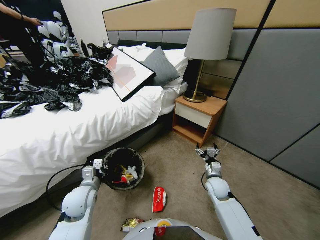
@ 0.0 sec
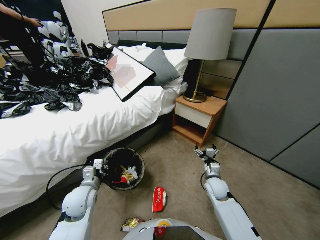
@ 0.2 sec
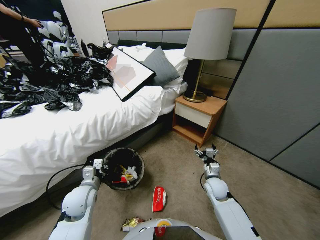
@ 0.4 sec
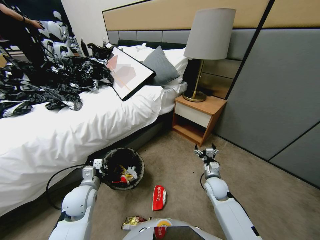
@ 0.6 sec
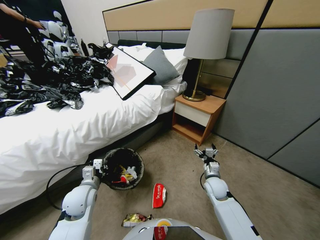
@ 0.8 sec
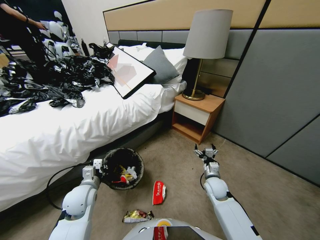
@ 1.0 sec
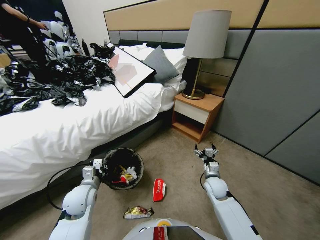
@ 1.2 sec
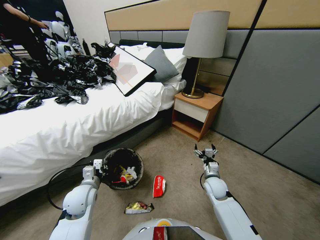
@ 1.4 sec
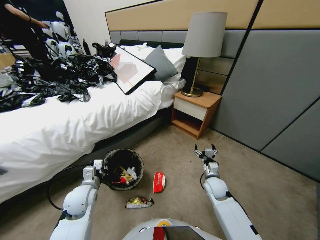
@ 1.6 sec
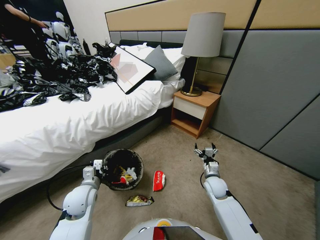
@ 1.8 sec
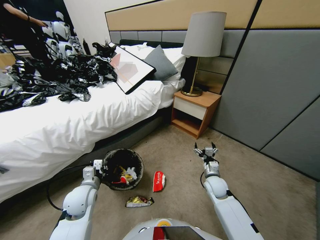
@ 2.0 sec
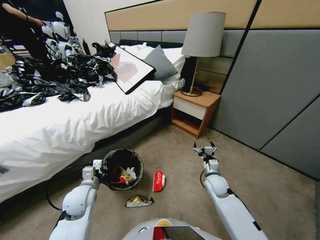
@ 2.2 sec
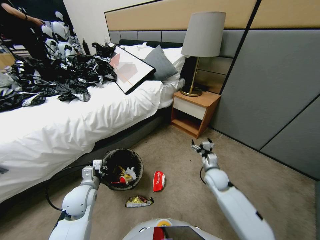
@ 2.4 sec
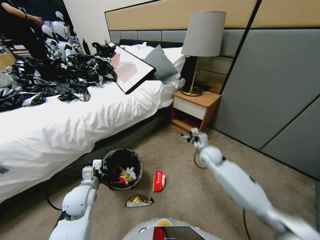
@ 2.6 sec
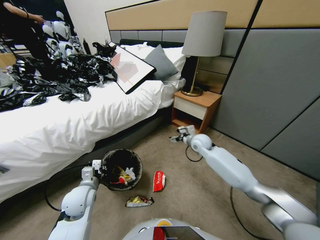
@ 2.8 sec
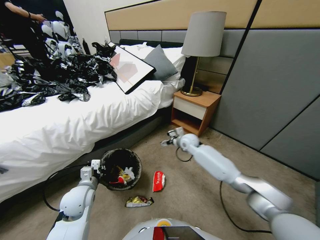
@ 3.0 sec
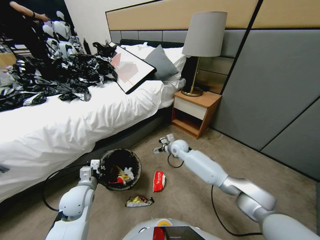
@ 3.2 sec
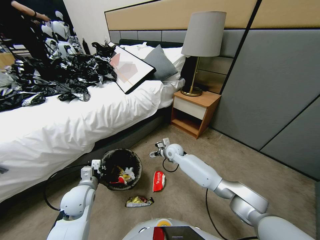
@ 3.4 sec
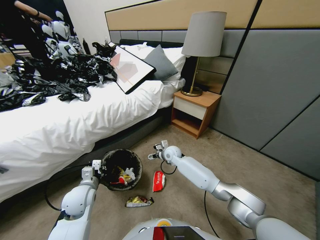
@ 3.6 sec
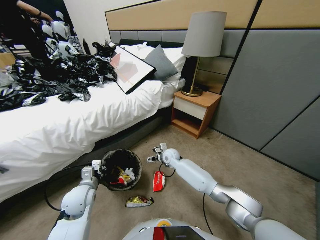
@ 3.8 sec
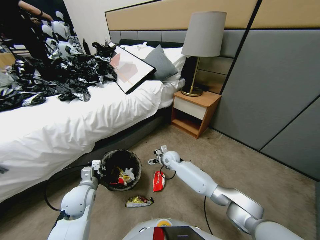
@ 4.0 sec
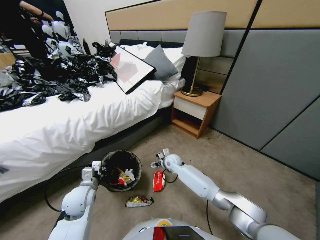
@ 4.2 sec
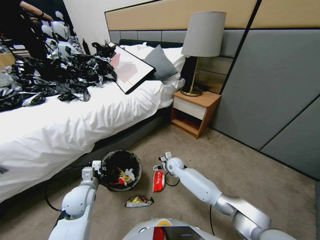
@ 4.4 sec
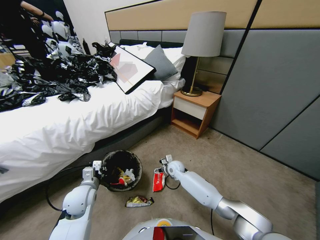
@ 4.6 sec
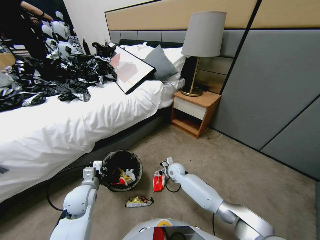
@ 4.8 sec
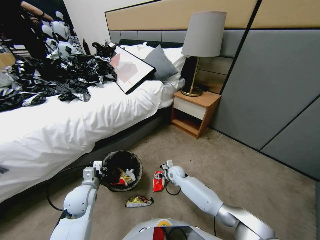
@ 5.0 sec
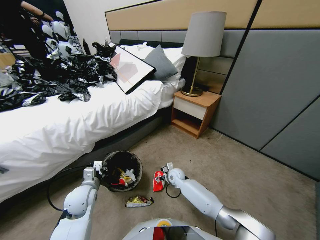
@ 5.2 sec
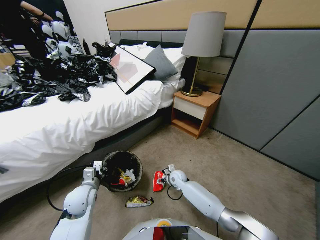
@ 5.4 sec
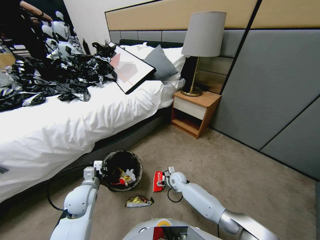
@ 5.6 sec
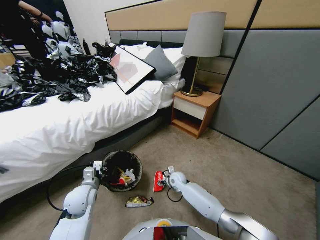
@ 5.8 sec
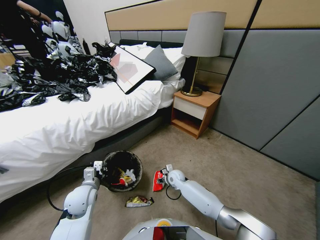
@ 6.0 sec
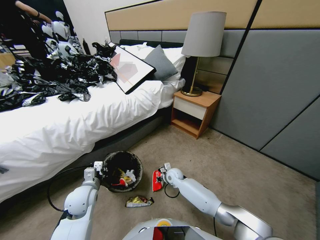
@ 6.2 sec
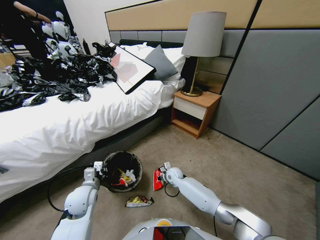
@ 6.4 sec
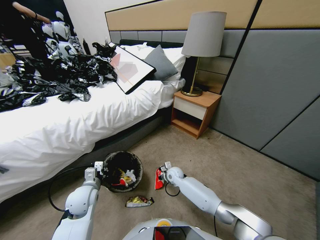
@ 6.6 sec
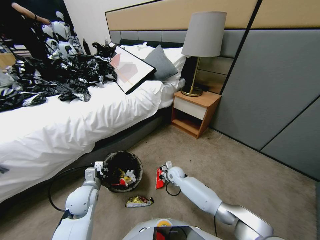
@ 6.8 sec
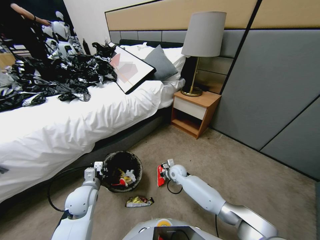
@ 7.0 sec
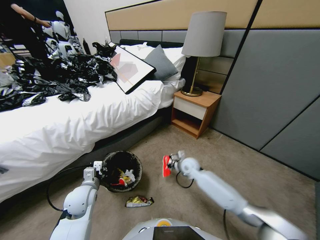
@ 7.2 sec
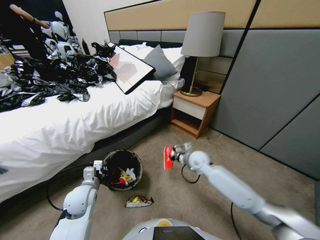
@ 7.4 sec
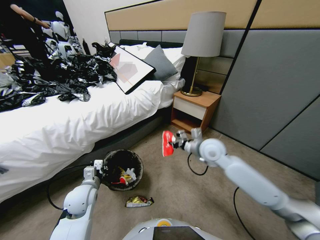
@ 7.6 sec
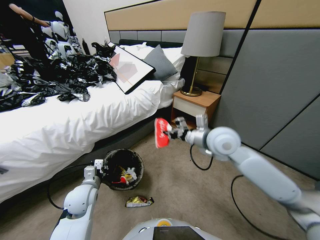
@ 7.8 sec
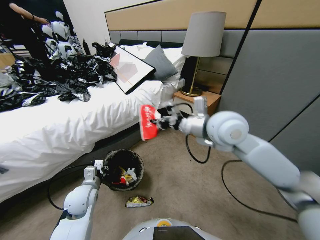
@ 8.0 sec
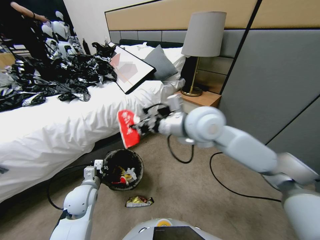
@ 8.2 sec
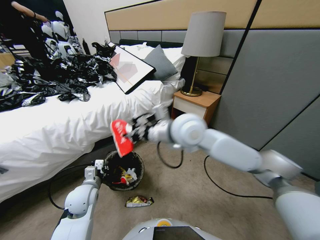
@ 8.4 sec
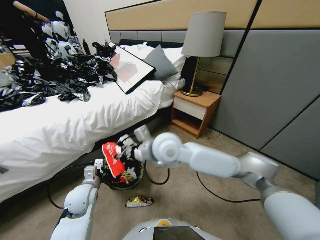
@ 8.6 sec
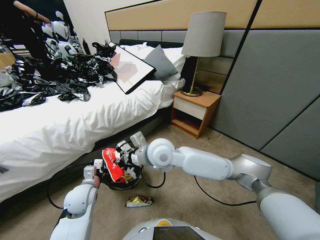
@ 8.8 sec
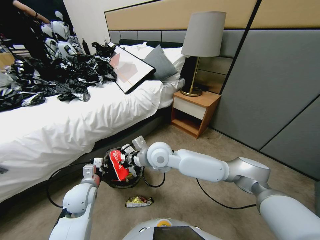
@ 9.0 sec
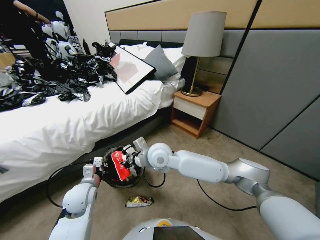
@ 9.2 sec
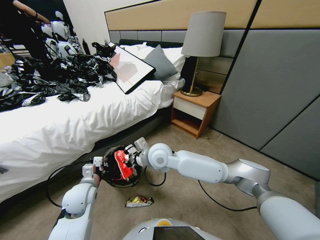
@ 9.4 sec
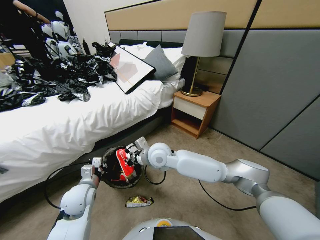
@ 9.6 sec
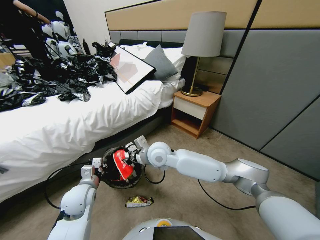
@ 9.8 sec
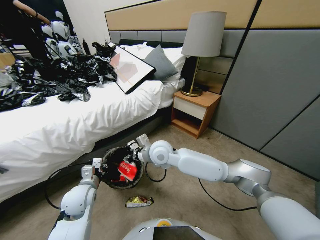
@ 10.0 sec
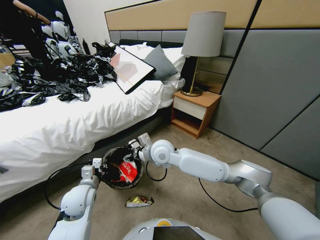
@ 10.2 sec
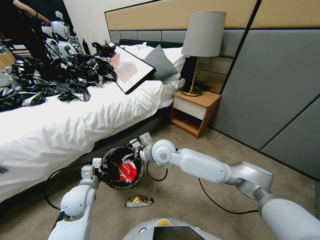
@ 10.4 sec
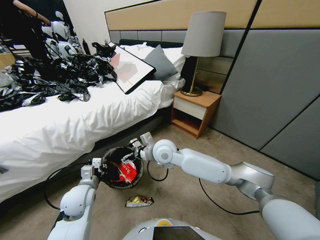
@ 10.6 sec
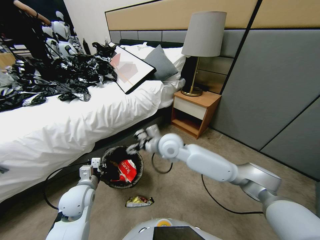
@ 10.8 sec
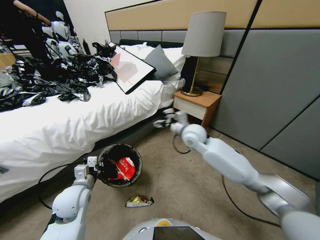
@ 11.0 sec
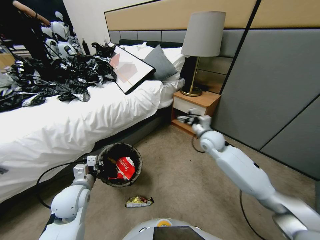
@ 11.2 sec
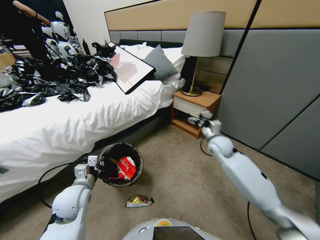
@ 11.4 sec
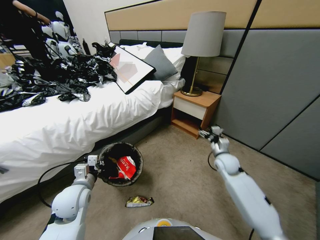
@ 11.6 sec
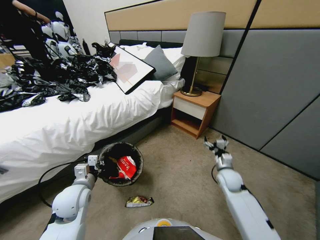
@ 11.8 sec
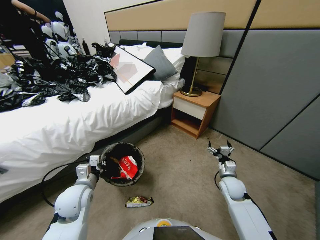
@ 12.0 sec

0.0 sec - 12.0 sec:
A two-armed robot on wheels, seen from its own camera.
Task of the whole recording: Pick up the trash bin, then pick up the garbage from the floor and place it into the trash bin.
1.6 sec - 3.0 sec: The right gripper shifts about 25 cm forward, to the left and upward.
3.0 sec - 4.4 sec: The right gripper heads downward and backward, covering about 15 cm.
4.4 sec - 6.0 sec: The right gripper moves approximately 5 cm, and closes its fingers.
6.0 sec - 7.6 sec: The right gripper moves upward, some 35 cm, and closes.
7.6 sec - 9.0 sec: The right gripper goes some 20 cm to the left.
9.0 sec - 10.4 sec: The right gripper opens.
10.4 sec - 12.0 sec: The right gripper moves to the right and downward, approximately 35 cm.

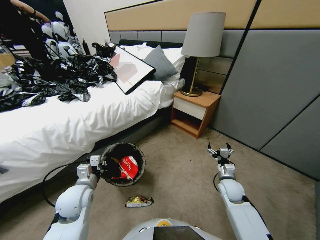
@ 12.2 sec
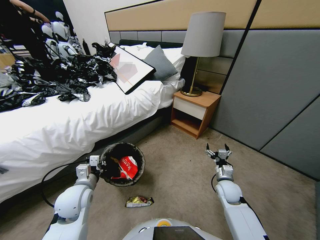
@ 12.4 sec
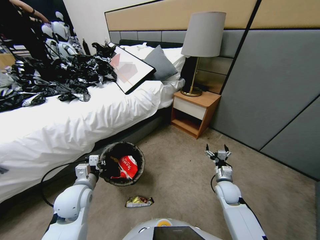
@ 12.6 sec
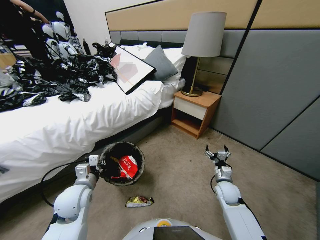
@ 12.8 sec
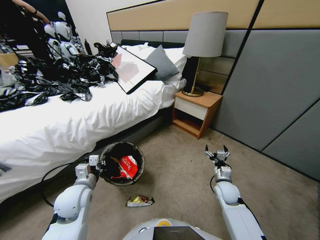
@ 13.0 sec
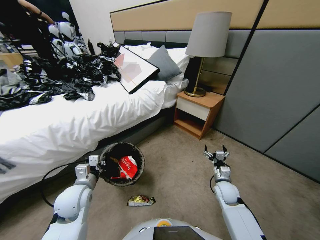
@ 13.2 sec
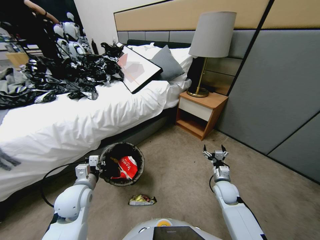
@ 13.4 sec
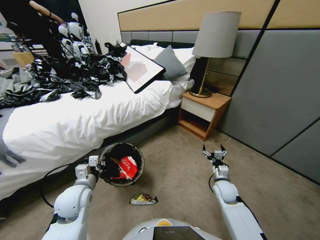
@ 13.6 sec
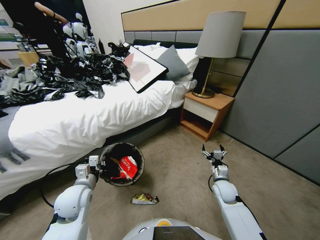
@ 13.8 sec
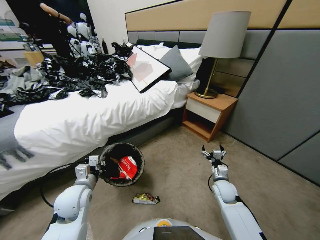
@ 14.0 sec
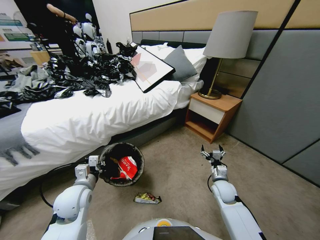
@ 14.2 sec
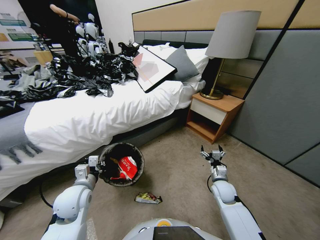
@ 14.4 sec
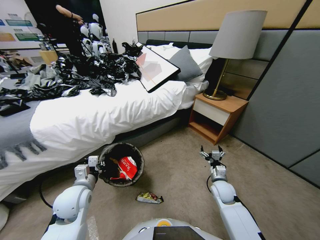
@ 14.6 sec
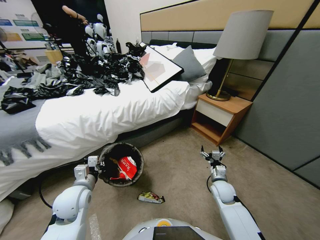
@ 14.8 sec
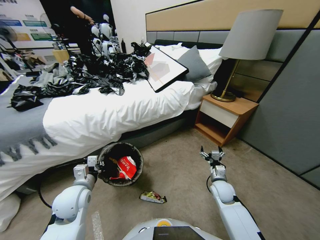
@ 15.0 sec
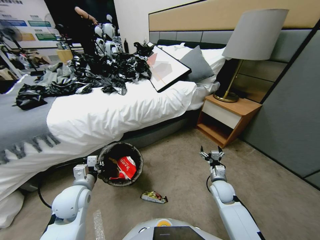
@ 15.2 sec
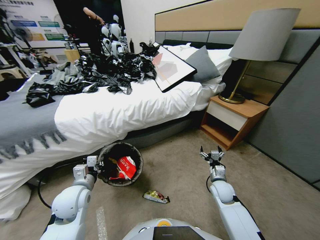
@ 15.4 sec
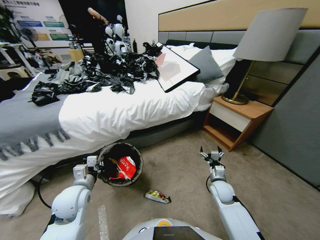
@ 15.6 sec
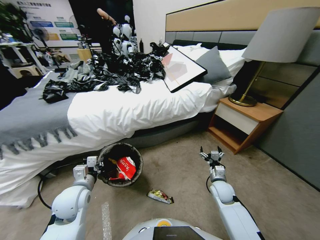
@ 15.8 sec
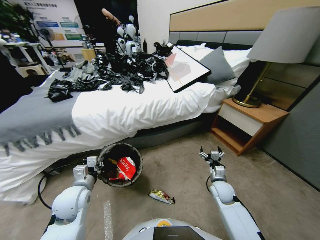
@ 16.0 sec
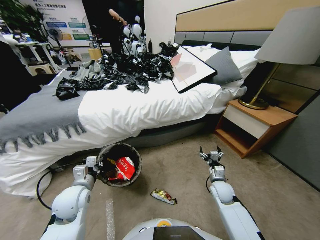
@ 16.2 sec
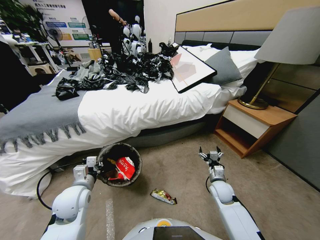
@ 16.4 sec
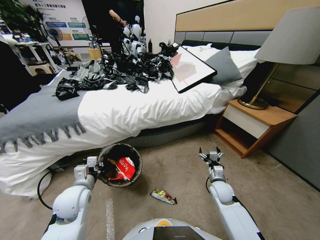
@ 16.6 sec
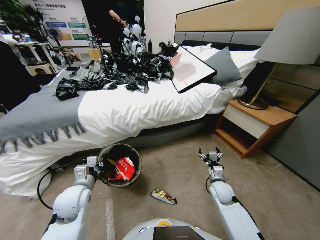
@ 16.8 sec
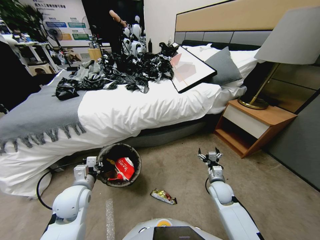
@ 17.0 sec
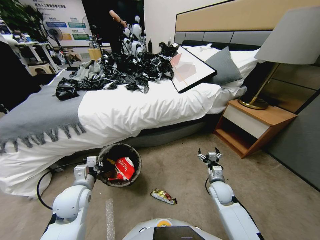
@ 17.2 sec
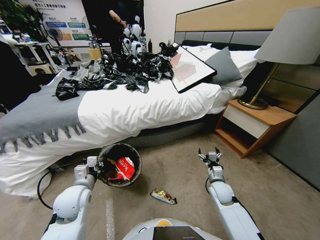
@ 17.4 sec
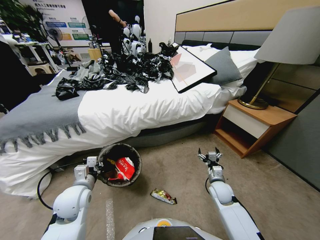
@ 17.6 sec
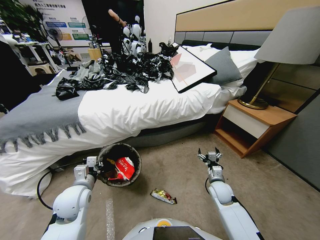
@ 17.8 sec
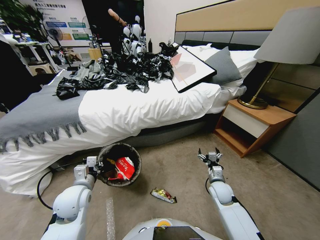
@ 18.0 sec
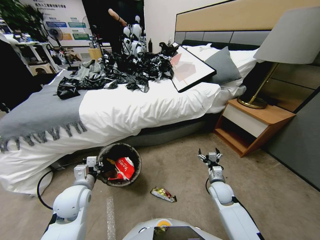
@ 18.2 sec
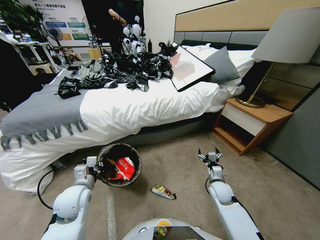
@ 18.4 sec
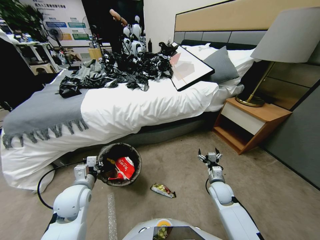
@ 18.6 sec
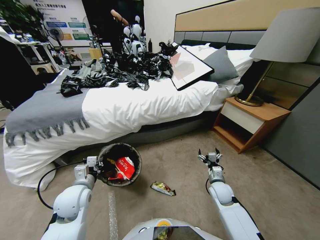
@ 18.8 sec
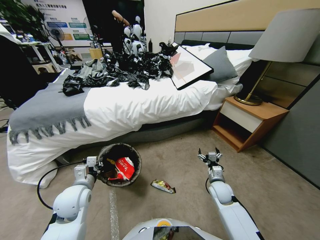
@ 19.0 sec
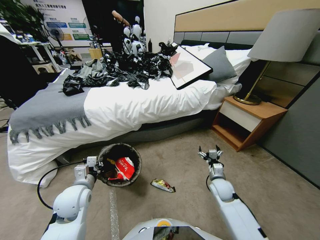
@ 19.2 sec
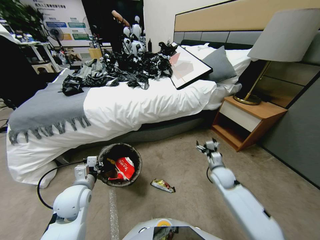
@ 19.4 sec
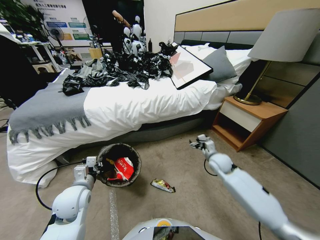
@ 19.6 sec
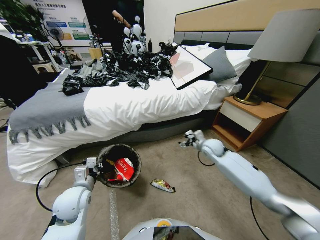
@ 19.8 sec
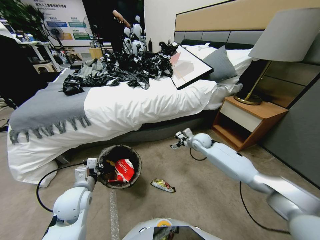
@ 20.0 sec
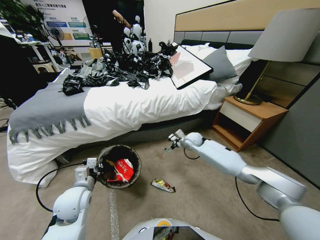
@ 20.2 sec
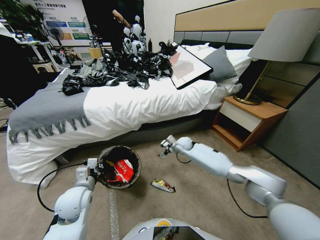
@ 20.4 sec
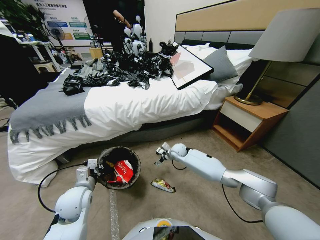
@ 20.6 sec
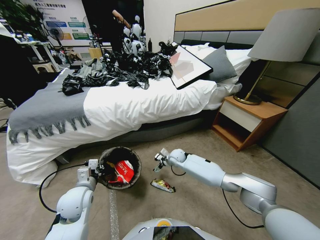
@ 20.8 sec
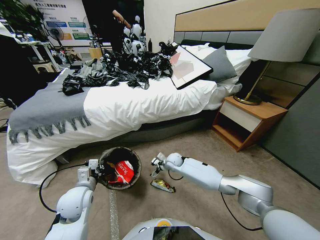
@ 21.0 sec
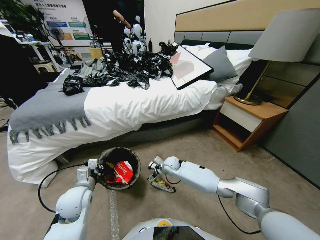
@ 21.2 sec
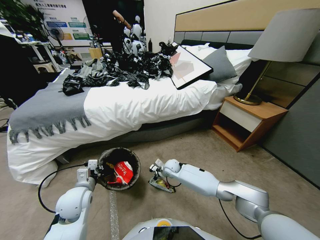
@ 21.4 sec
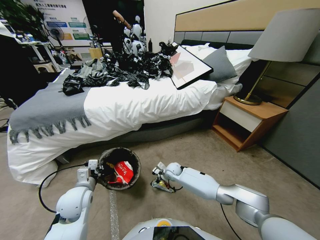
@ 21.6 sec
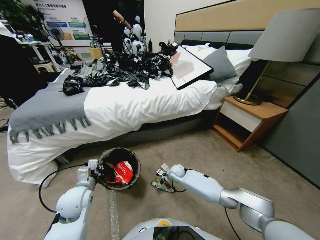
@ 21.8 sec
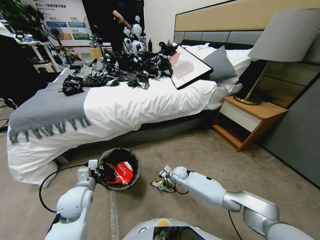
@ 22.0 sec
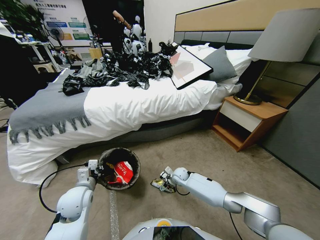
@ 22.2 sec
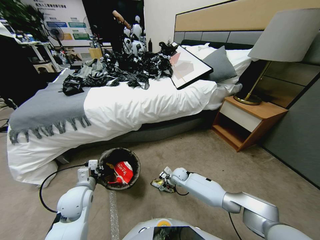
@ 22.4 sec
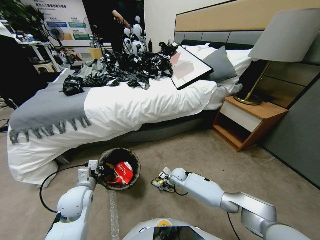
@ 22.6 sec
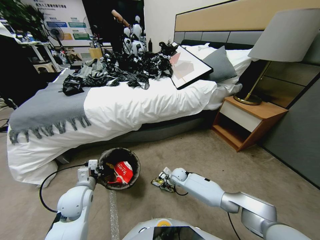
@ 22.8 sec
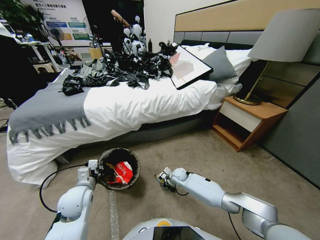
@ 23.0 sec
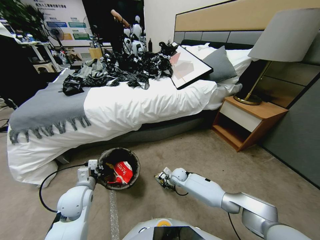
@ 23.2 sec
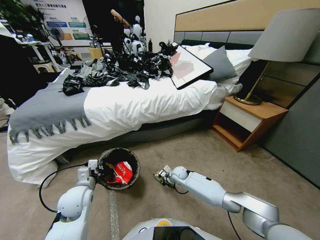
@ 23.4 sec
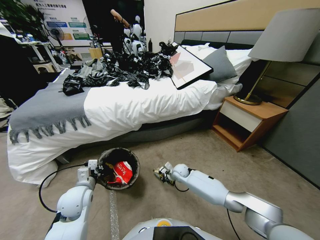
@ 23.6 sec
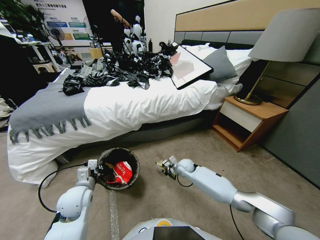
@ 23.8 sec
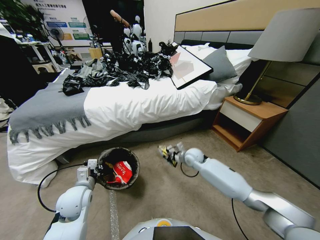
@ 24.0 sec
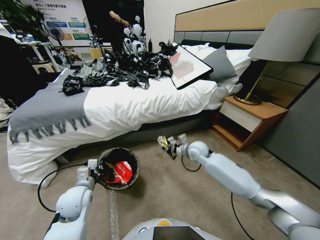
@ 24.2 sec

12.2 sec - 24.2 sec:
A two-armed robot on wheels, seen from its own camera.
Task of the whole recording: Pick up the trash bin, then pick up the garbage from the floor and place it into the trash bin.
16.6 sec - 18.2 sec: Both grippers stay put.
18.2 sec - 19.8 sec: The right gripper heads forward and upward, covering about 25 cm.
19.8 sec - 21.2 sec: The right gripper shifts about 20 cm to the left and downward.
21.2 sec - 22.6 sec: The right gripper travels downward by approximately 5 cm, and closes up.
22.6 sec - 24.2 sec: The right gripper moves upward, roughly 30 cm, and closes.
